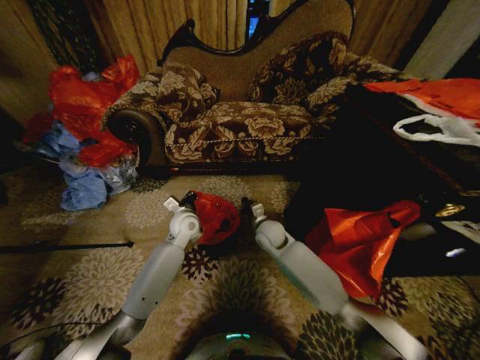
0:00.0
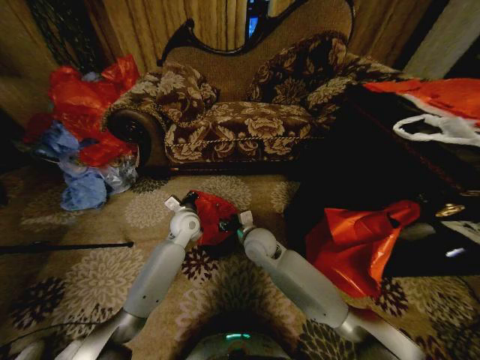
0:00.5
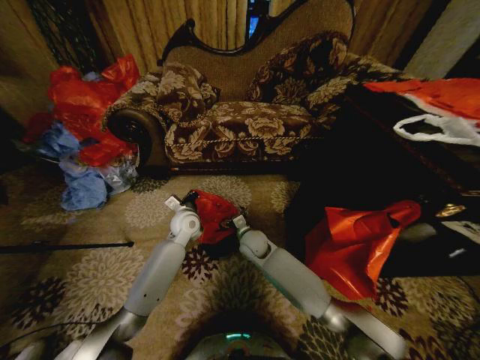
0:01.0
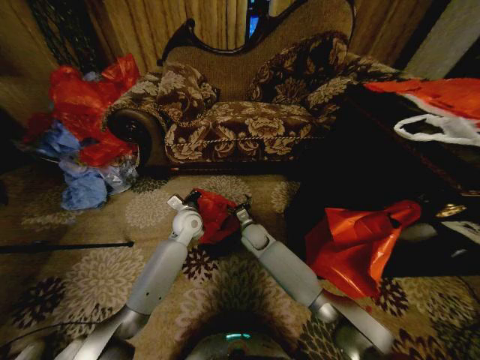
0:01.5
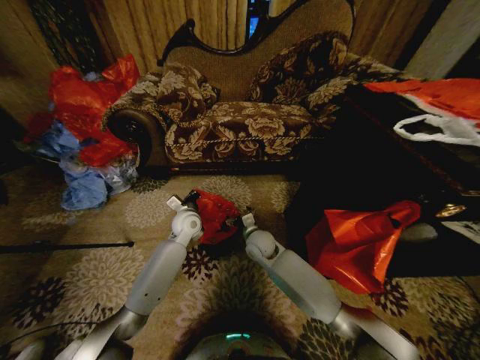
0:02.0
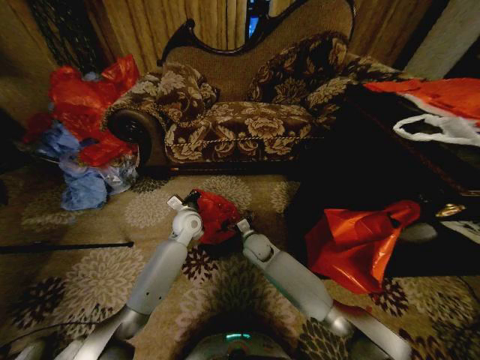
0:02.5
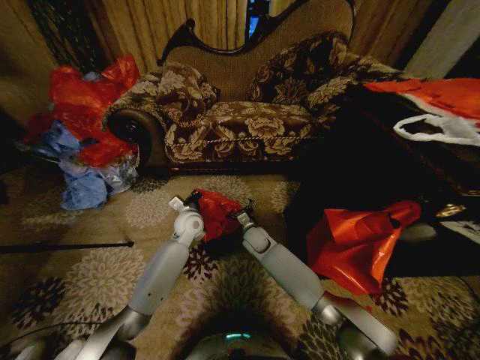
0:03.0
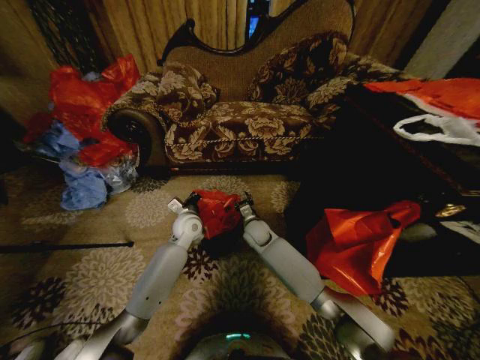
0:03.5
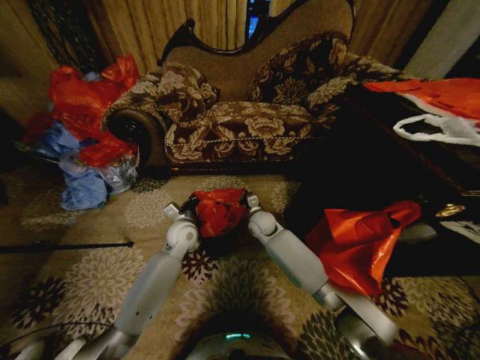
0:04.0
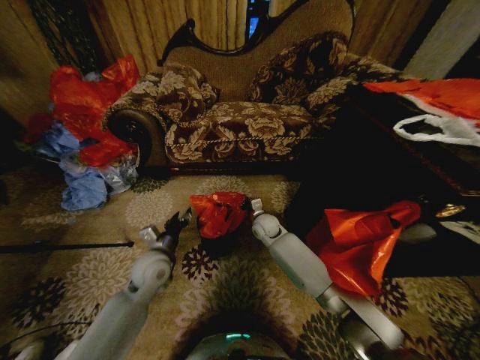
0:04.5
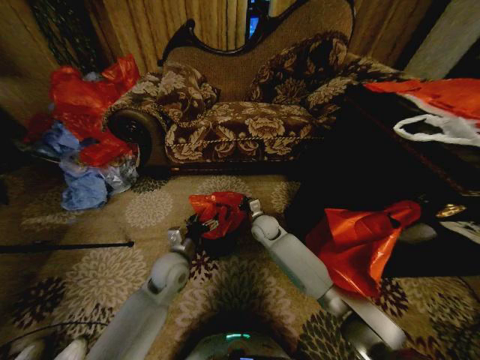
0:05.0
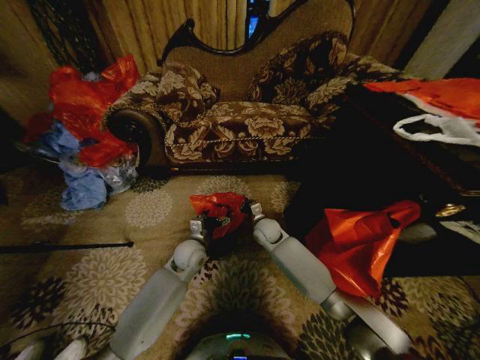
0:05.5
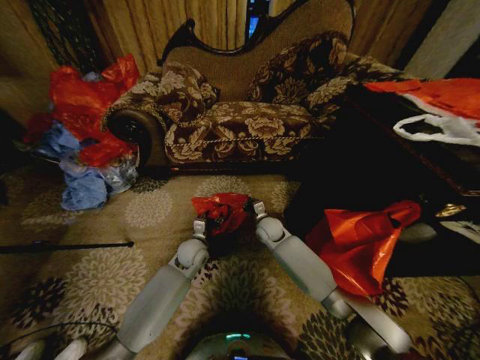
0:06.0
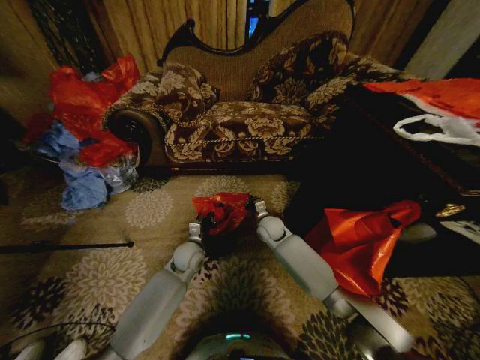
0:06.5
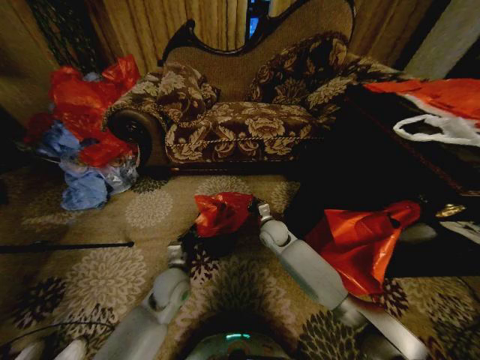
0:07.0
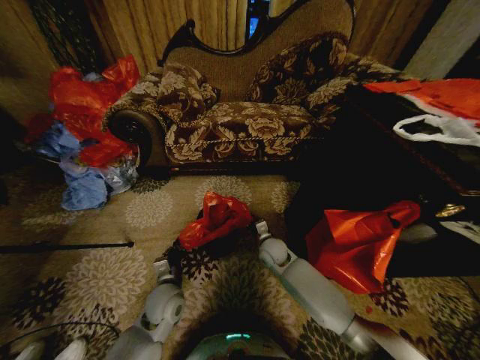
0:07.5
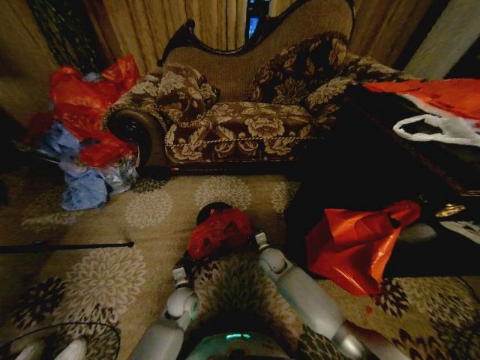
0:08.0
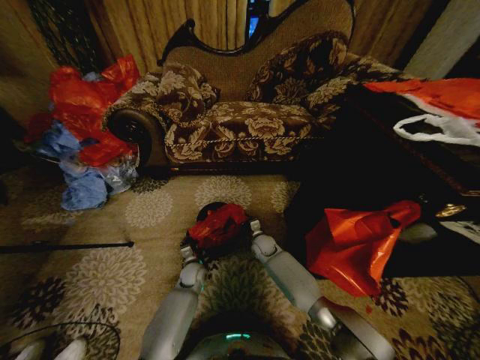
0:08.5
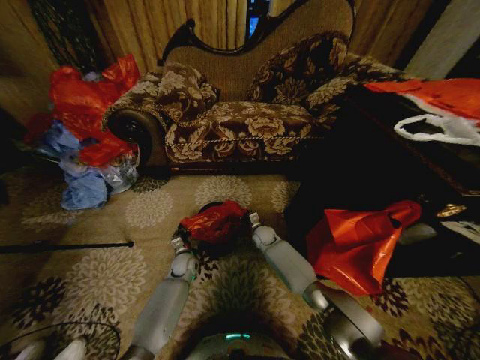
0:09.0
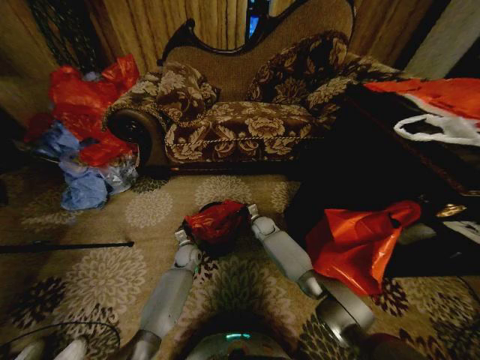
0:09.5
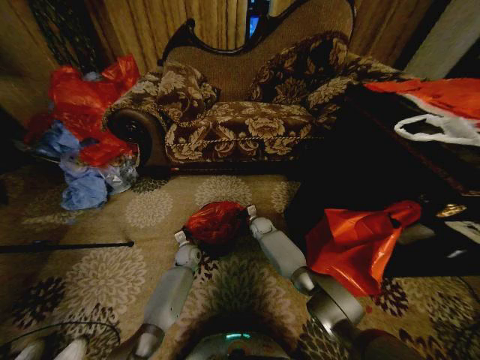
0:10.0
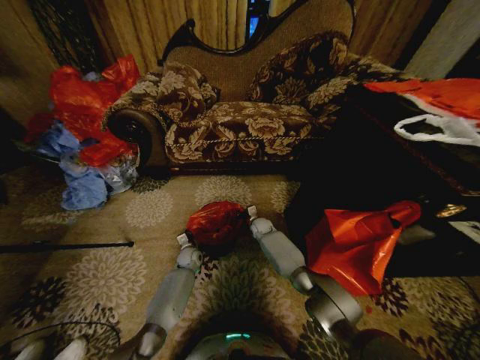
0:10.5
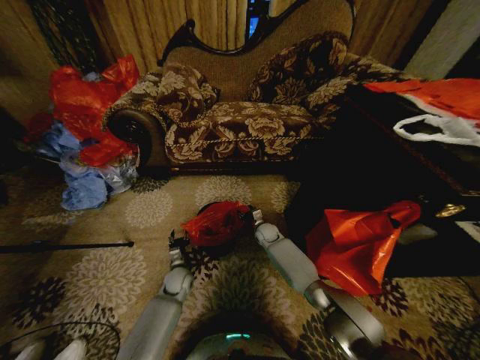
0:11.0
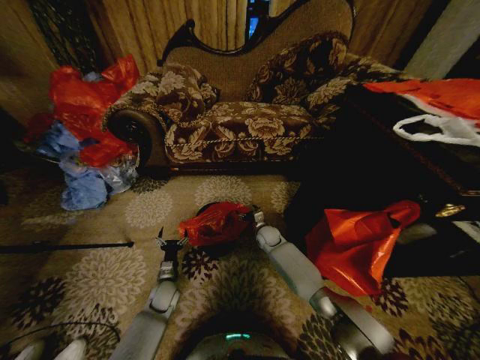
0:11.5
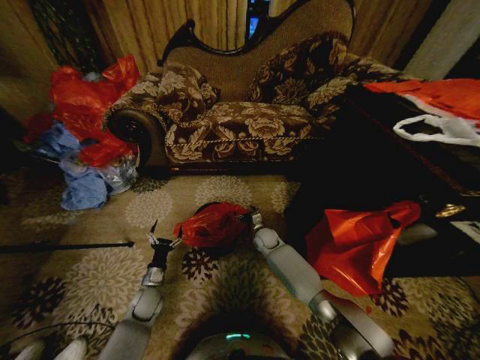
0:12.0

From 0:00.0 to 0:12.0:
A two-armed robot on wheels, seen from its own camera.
Task of the whole recording: Place a garbage bag over the trash bin.
From 0:00.0 to 0:02.0: The right gripper opens.
From 0:02.0 to 0:04.0: The right gripper travels forward by about 10 cm, and closes its fingers.
From 0:04.0 to 0:06.0: The left gripper moves downward, about 5 cm, travels backward and back again, some 10 cm each way, and opens up.
From 0:06.0 to 0:08.0: Both grippers travel together downward and backward, approximately 15 cm. The left gripper closes.
From 0:08.0 to 0:10.0: Both grippers travel together forward, about 15 cm.
From 0:10.0 to 0:12.0: The right gripper travels backward by approximately 5 cm, and opens. The left gripper is displaced backward and to the left by some 20 cm, and opens.

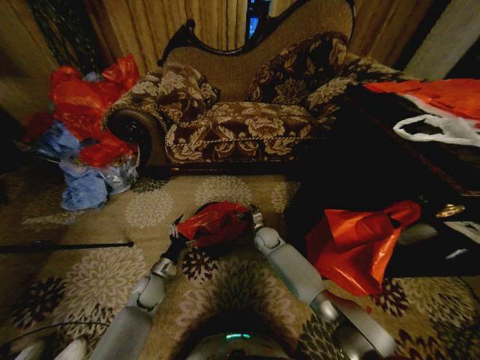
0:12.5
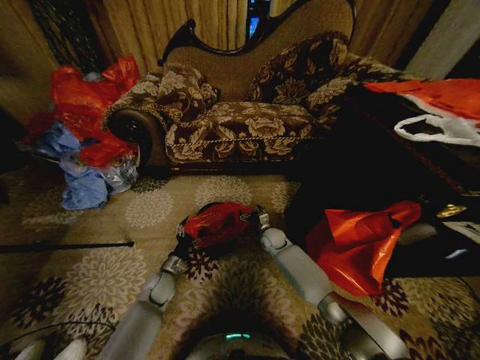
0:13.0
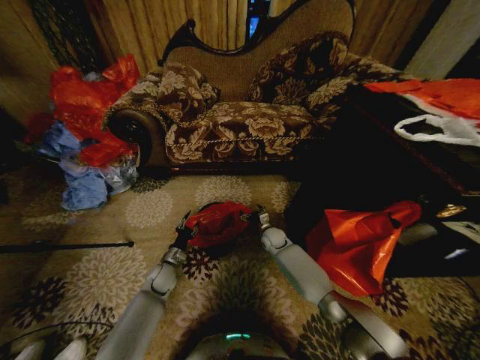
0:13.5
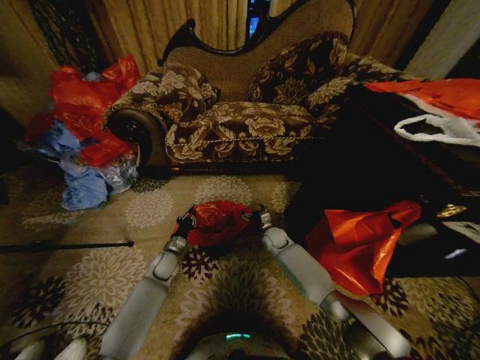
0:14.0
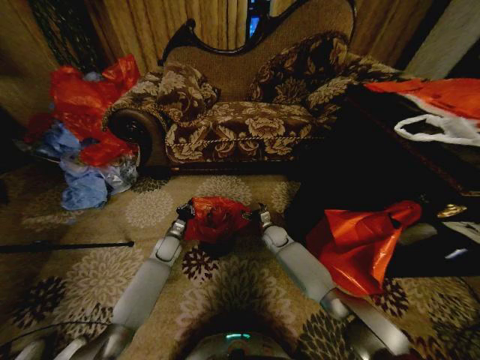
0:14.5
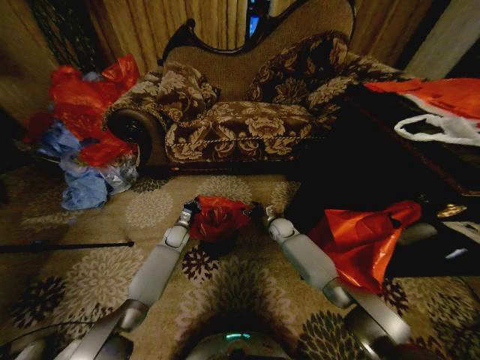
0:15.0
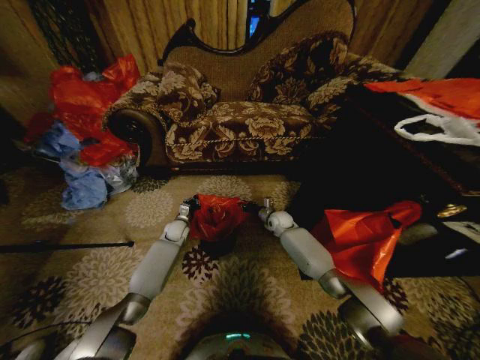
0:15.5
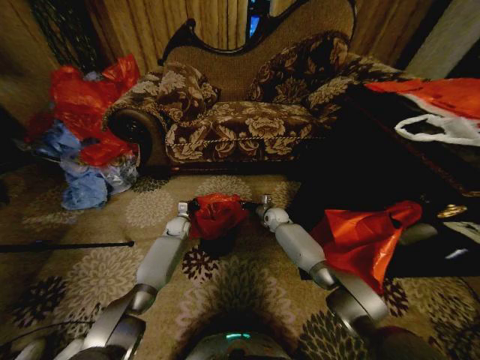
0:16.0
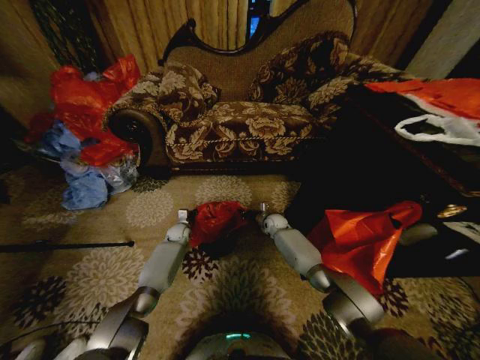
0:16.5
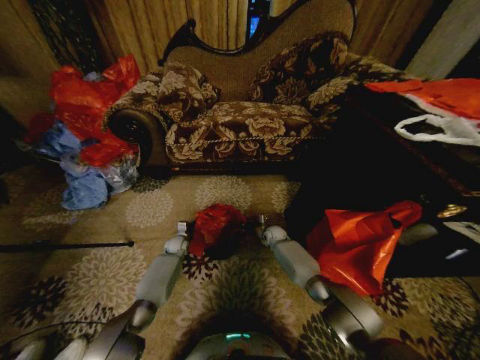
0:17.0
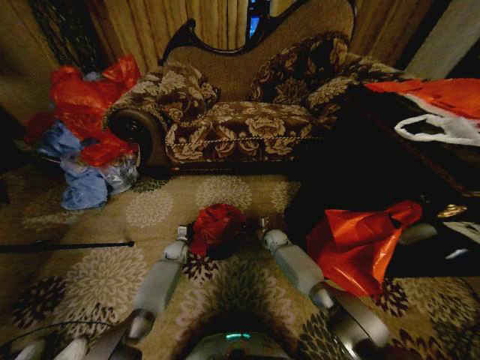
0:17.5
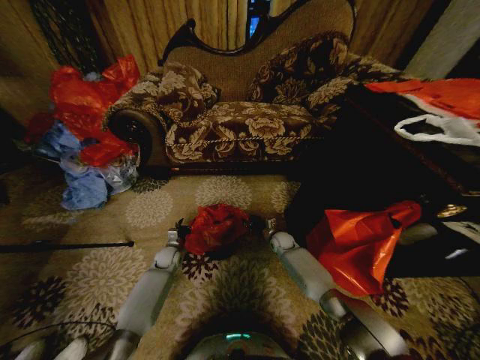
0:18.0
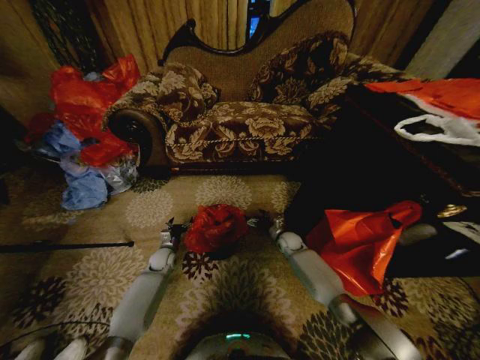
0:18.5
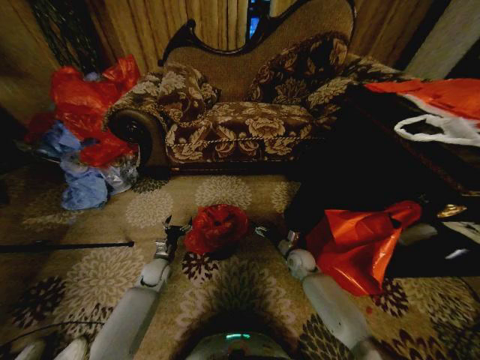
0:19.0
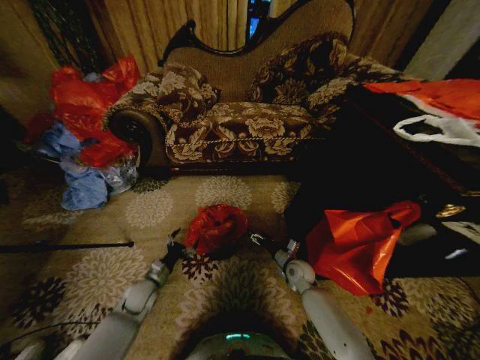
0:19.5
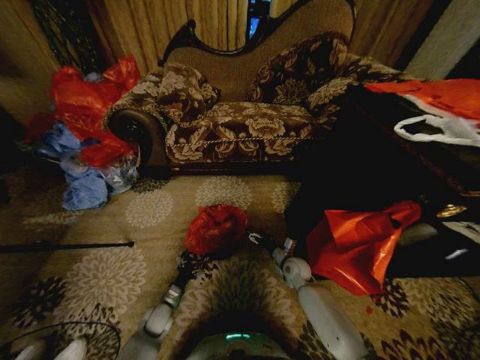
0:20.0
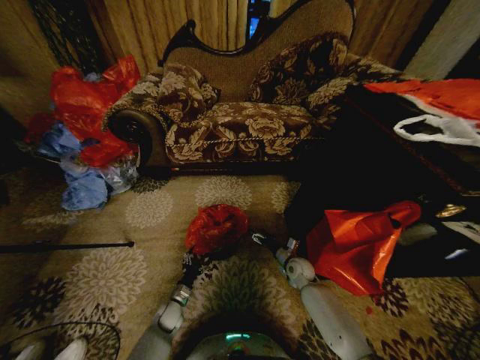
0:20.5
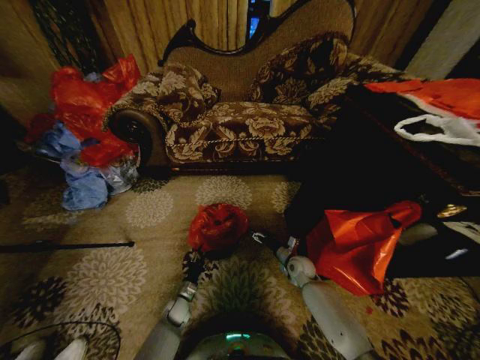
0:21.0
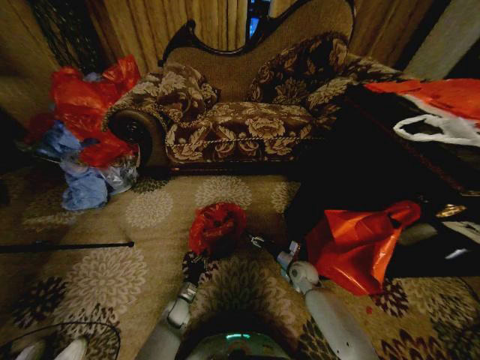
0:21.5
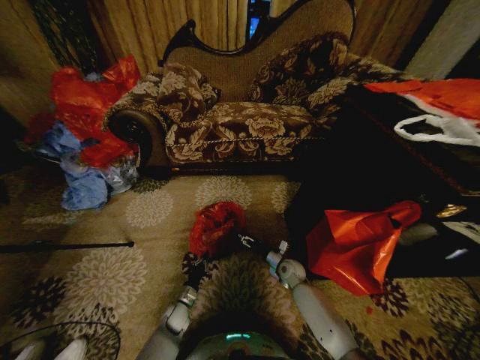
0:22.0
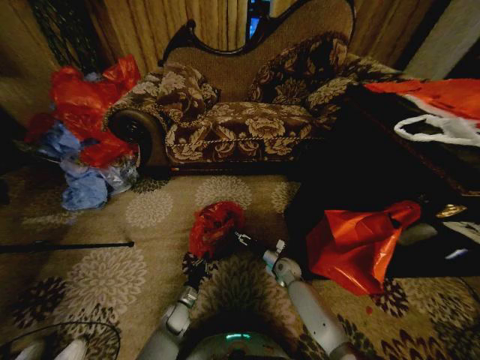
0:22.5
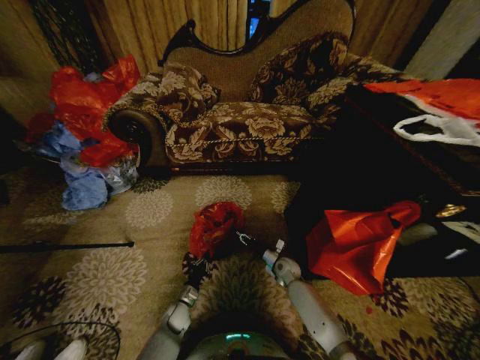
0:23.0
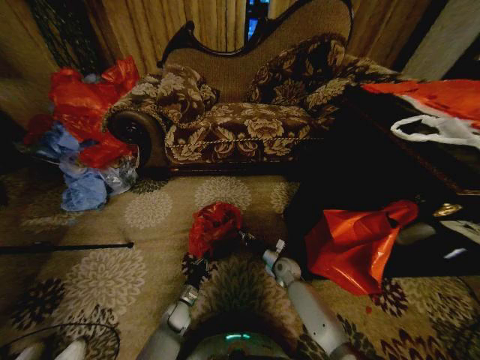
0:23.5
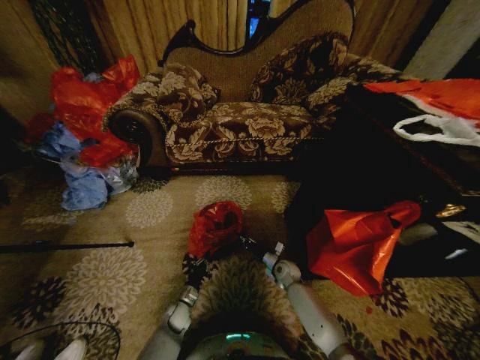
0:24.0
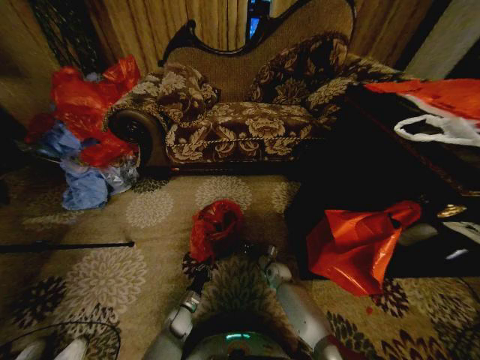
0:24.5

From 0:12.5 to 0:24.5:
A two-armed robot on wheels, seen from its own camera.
Task of the whole recording: Place a garbage bag over the trash bin.
From 0:12.5 to 0:14.5: The left gripper goes some 15 cm forward, and closes.
From 0:14.5 to 0:16.5: The two grippers go approximately 5 cm forward. The right gripper closes up.
From 0:16.5 to 0:18.5: The left gripper travels backward by some 10 cm, and opens up; the right gripper travels backward and to the right by some 10 cm, and opens up.
From 0:18.5 to 0:20.5: The right gripper is displaced backward by roughly 10 cm, while the left gripper moves backward and downward, approximately 20 cm.
From 0:20.5 to 0:22.5: The right gripper moves about 5 cm, while the left gripper closes up.
From 0:22.5 to 0:24.5: The right gripper shifts by approximately 5 cm, and closes its fingers.

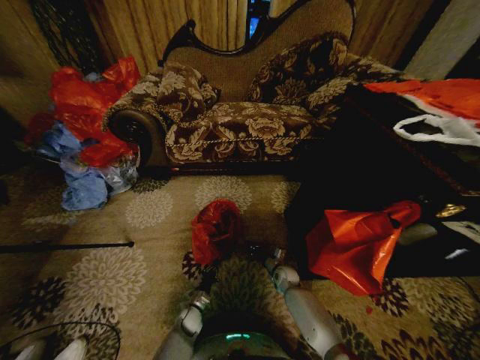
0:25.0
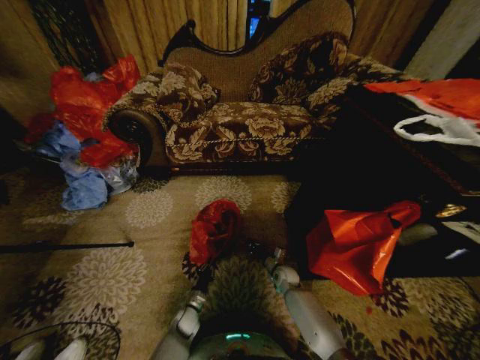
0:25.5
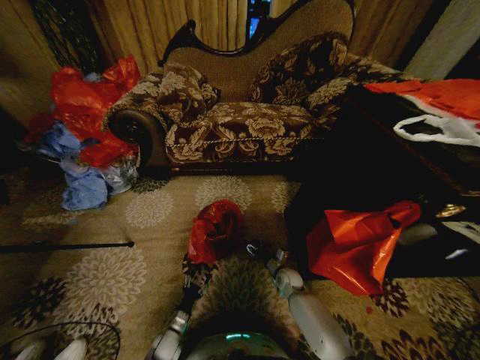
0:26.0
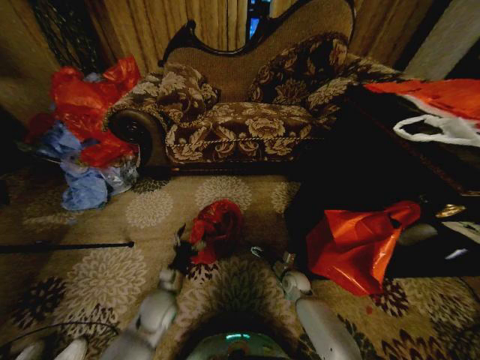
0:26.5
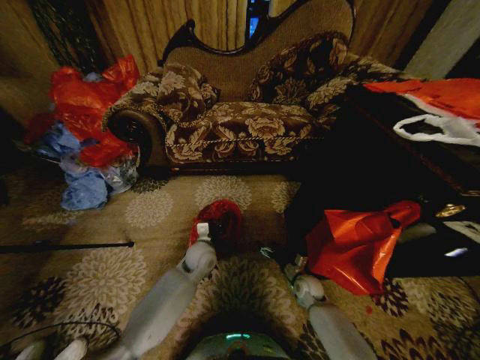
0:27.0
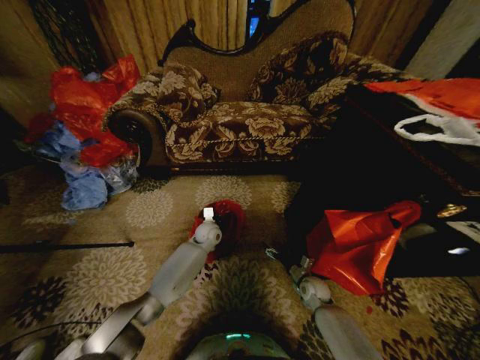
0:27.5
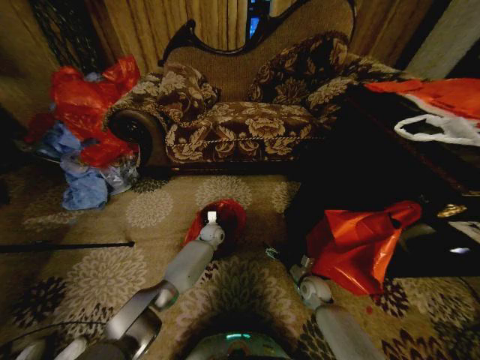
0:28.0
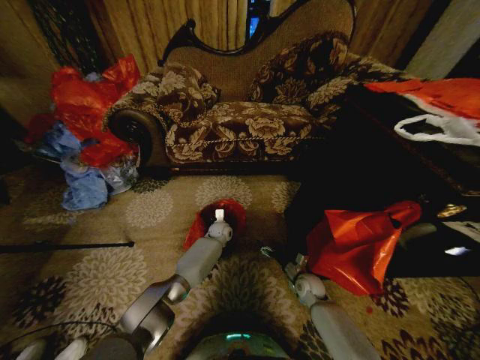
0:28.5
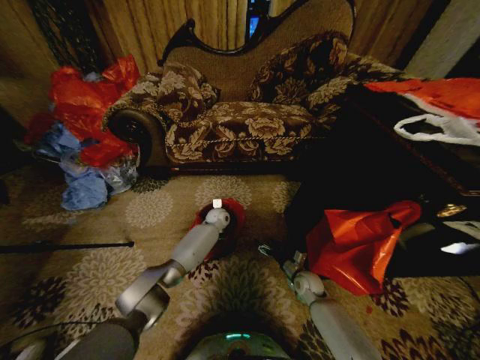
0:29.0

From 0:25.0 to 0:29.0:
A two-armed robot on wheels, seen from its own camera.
Task of the whole recording: Place a garbage bag over the trash bin.
From 0:25.0 to 0:27.0: The right gripper travels to the right by about 5 cm, and opens up, while the left gripper goes some 30 cm upward, and opens, then closes once more.
From 0:27.0 to 0:29.0: The left gripper travels forward by some 20 cm.
